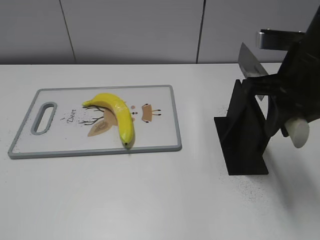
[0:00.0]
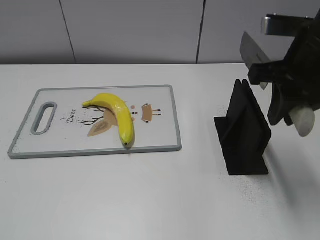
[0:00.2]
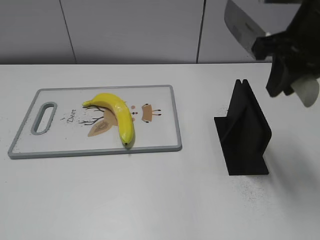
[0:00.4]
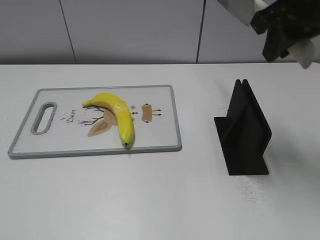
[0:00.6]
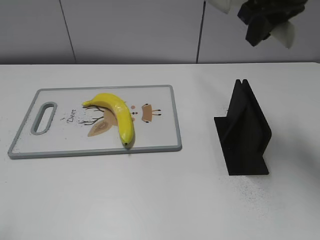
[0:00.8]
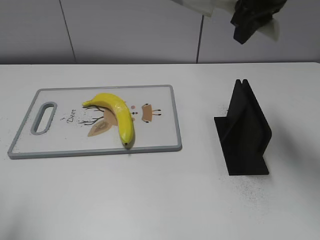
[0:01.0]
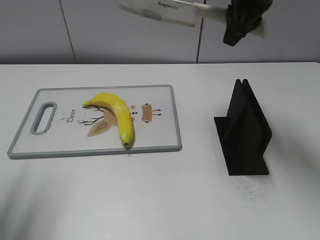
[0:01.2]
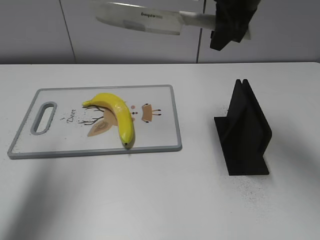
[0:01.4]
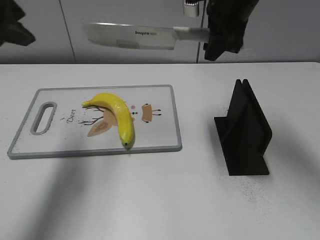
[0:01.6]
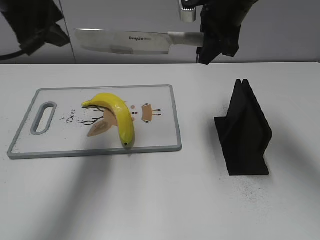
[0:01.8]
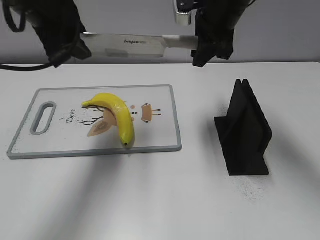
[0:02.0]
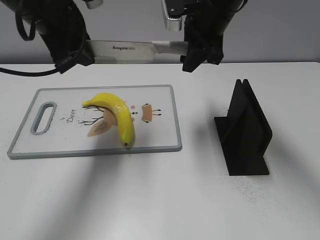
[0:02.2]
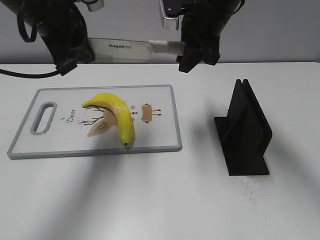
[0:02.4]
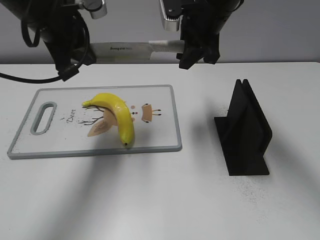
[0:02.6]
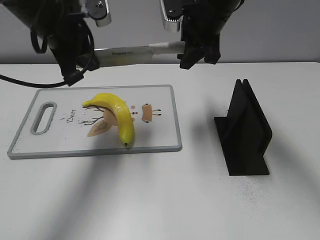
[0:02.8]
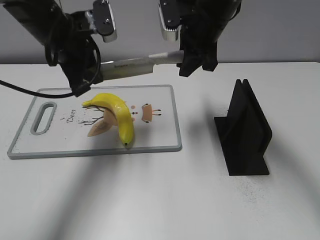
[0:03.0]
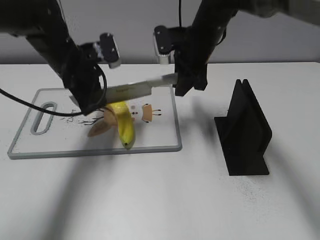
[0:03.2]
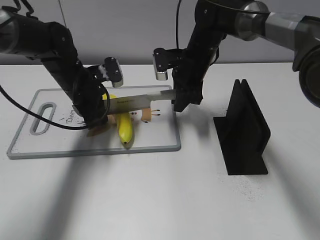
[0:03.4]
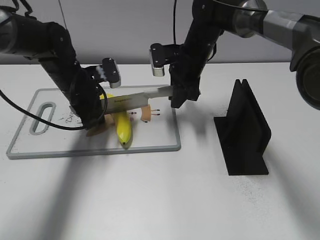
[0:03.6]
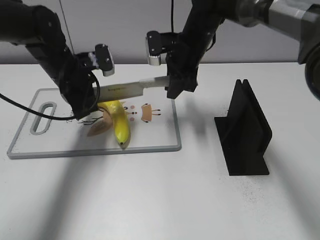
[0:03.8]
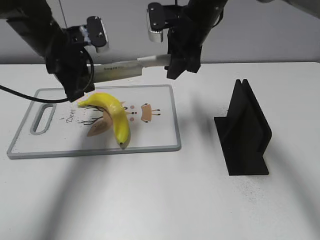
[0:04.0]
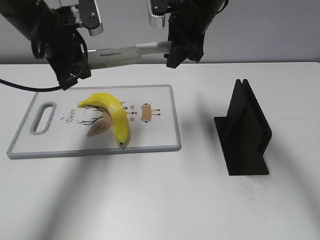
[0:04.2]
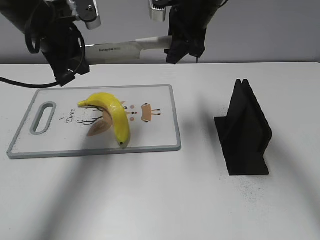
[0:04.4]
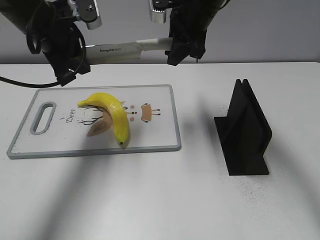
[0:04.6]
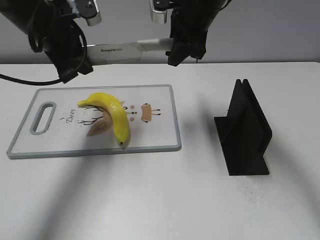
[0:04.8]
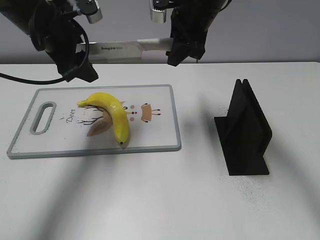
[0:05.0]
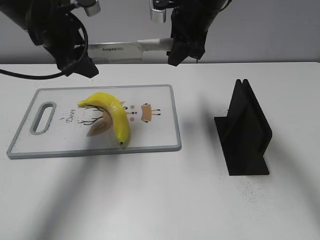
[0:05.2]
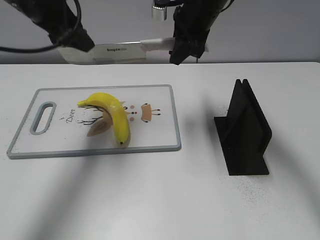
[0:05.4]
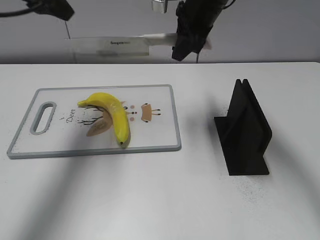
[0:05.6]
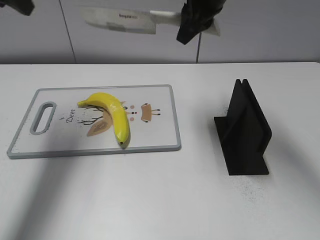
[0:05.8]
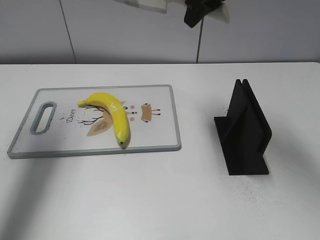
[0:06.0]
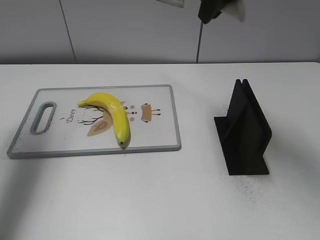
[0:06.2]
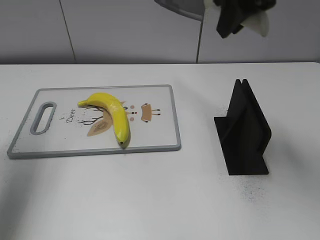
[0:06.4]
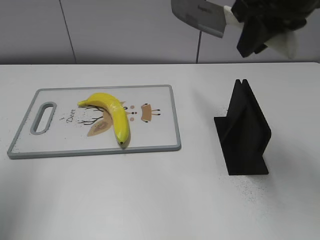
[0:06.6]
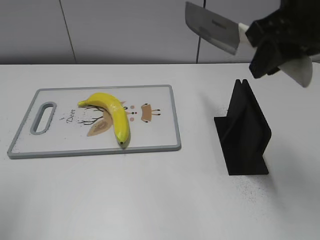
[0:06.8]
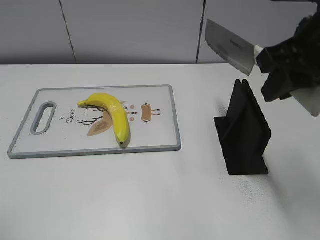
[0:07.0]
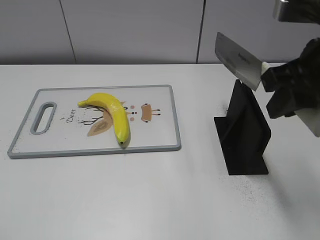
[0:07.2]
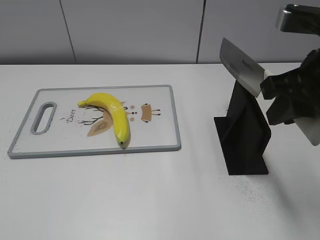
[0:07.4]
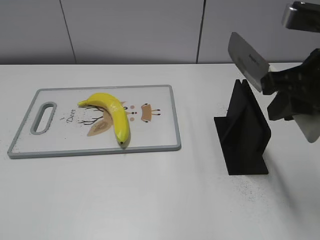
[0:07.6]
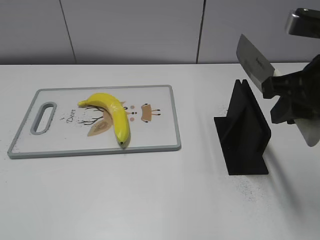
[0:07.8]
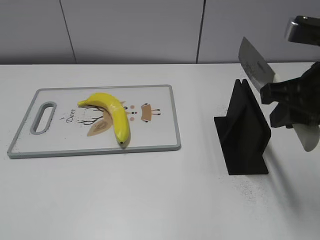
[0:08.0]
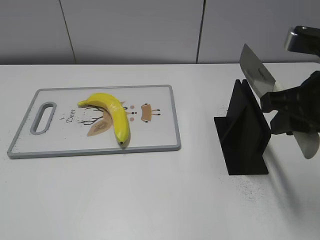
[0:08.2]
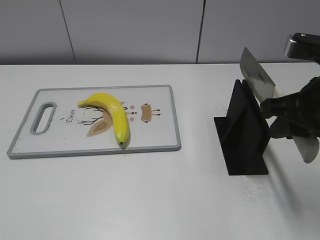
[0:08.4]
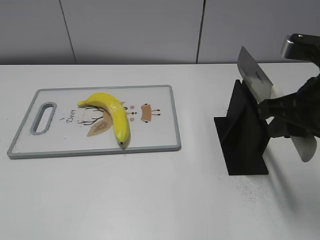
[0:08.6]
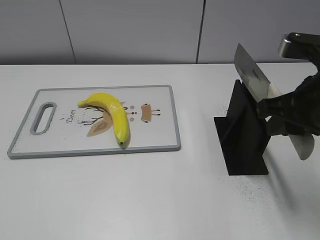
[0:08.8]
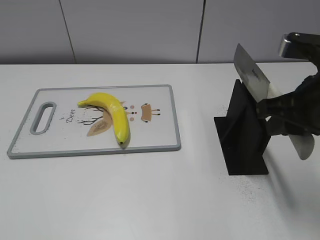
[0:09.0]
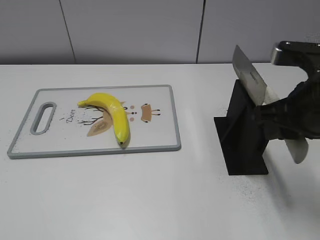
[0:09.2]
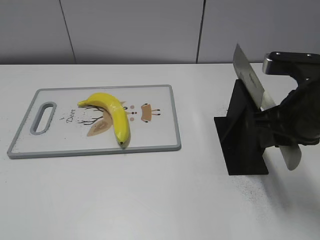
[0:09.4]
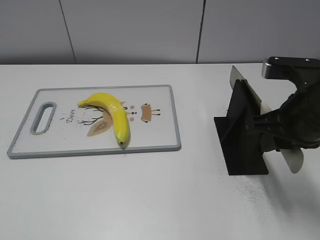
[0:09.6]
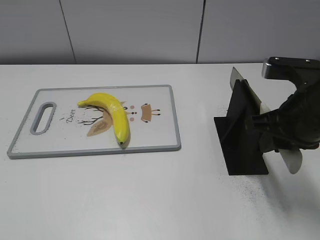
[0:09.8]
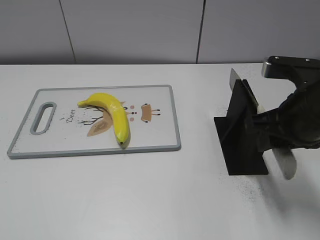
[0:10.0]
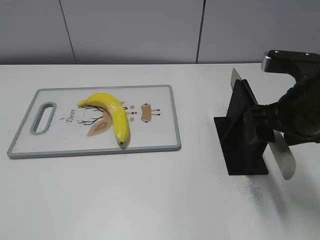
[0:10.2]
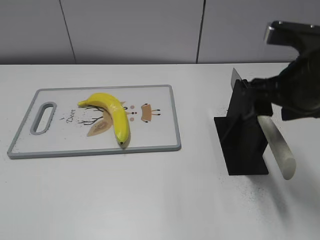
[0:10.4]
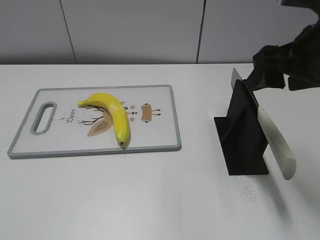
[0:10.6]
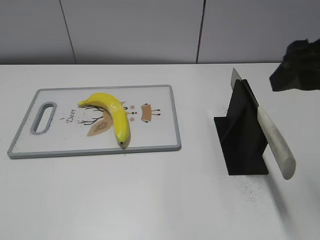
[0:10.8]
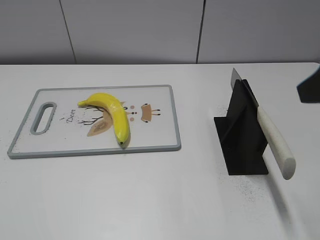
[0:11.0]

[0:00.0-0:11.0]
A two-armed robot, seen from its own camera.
Task of the whole recording: cut plastic banana.
Step, 0:00.8 to 0:04.6: Lift the knife with your right hand.
Step, 0:04.8 to 0:05.8: Cut the banana with your right hand.
Step, 0:06.0 to 0:07.2: Lift the knife with your right hand.
0:00.0 to 0:01.6: The left gripper heads forward, covering some 30 cm. The right gripper heads forward and to the left, covering approximately 15 cm.
0:01.6 to 0:03.2: The left gripper moves downward and forward, some 20 cm, and closes its fingers, while the right gripper moves downward, roughly 10 cm.
0:03.2 to 0:04.8: Both grippers travel together upward, roughly 10 cm. The left gripper opens up.
0:04.8 to 0:06.2: The right gripper moves upward, roughly 10 cm, while the left gripper is displaced to the left and upward by approximately 15 cm, and opens up.
0:06.2 to 0:07.8: The left gripper heads backward, covering about 35 cm. Meanwhile the right gripper goes about 20 cm backward, to the right and downward.
0:07.8 to 0:09.4: The right gripper goes approximately 5 cm downward.
0:09.4 to 0:11.0: The right gripper goes approximately 15 cm upward and backward, and opens up.

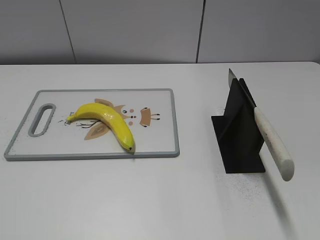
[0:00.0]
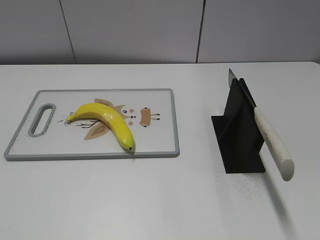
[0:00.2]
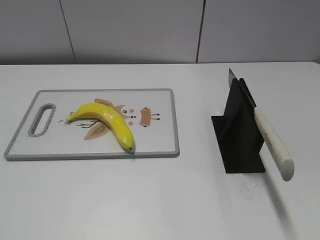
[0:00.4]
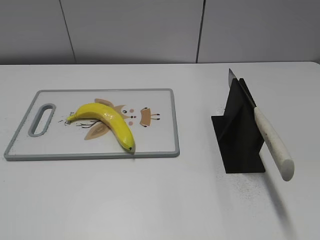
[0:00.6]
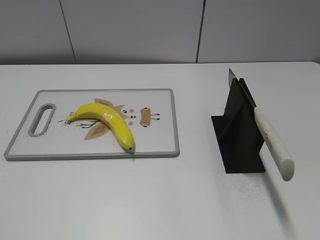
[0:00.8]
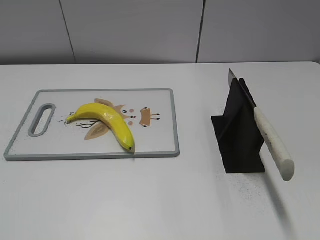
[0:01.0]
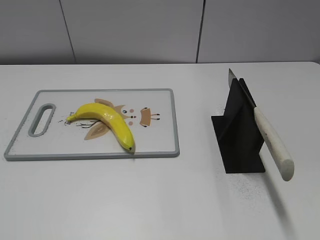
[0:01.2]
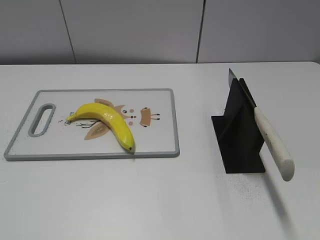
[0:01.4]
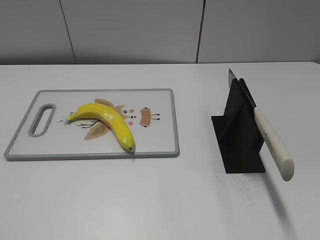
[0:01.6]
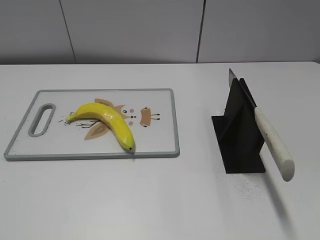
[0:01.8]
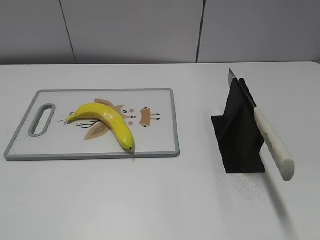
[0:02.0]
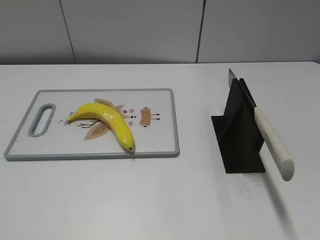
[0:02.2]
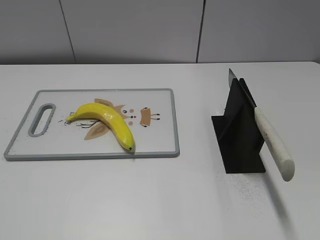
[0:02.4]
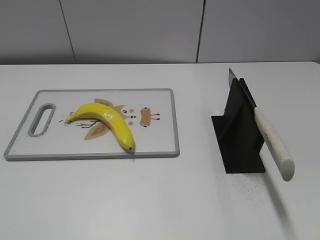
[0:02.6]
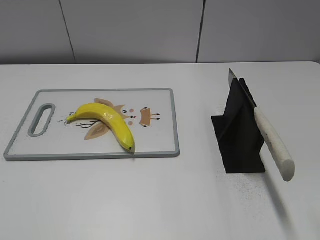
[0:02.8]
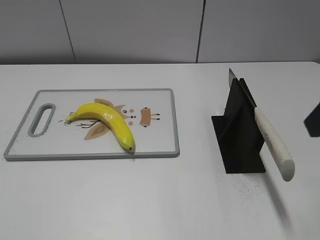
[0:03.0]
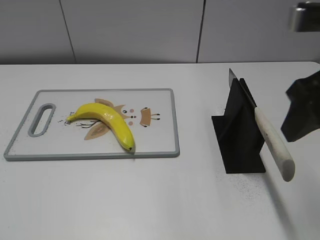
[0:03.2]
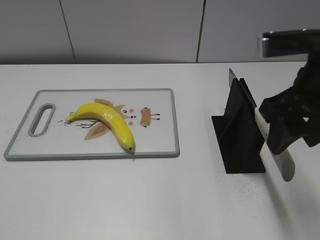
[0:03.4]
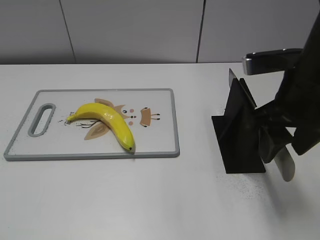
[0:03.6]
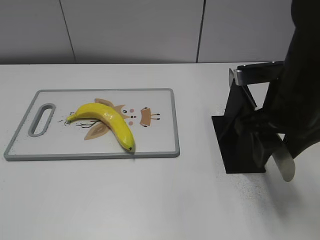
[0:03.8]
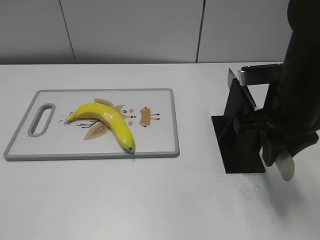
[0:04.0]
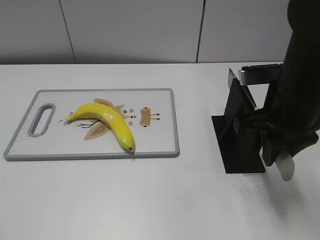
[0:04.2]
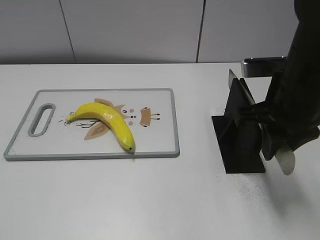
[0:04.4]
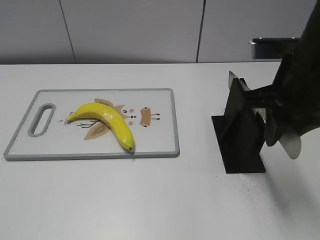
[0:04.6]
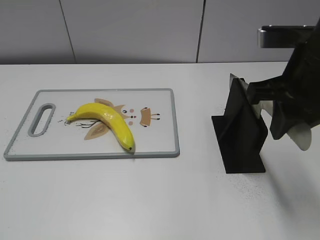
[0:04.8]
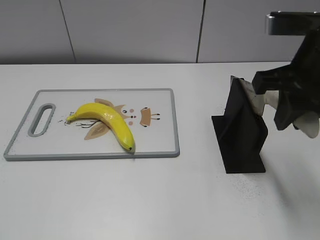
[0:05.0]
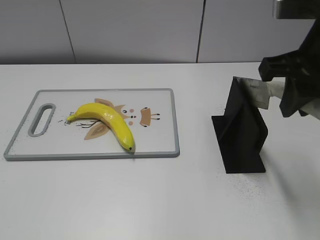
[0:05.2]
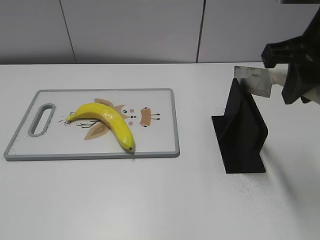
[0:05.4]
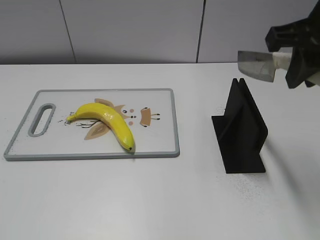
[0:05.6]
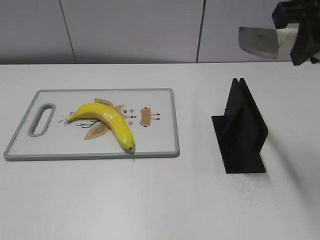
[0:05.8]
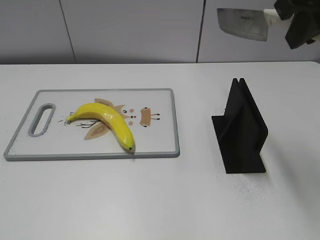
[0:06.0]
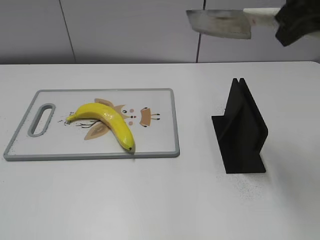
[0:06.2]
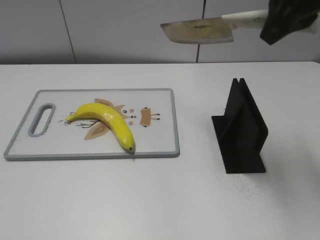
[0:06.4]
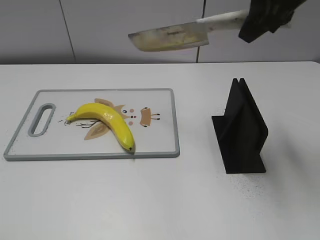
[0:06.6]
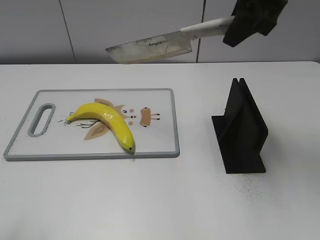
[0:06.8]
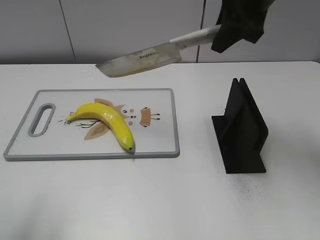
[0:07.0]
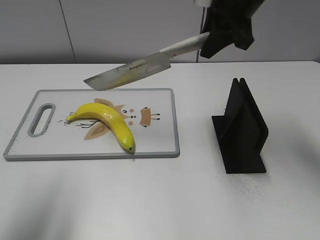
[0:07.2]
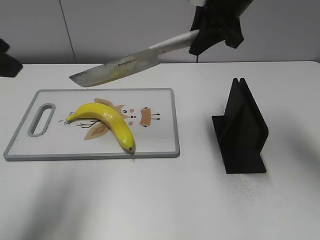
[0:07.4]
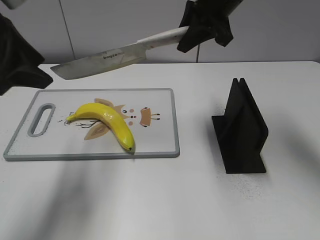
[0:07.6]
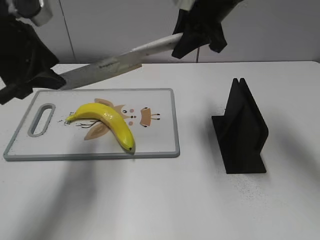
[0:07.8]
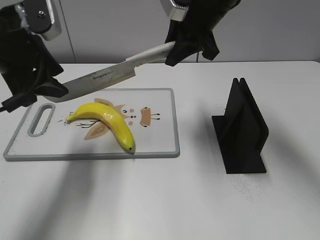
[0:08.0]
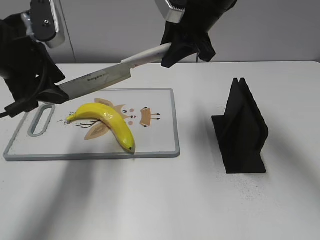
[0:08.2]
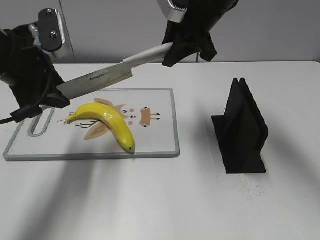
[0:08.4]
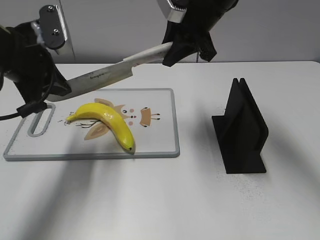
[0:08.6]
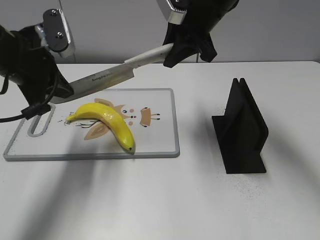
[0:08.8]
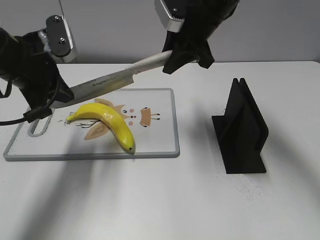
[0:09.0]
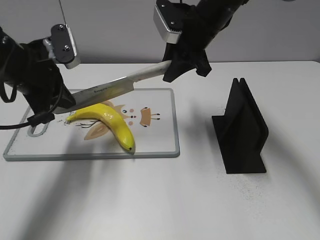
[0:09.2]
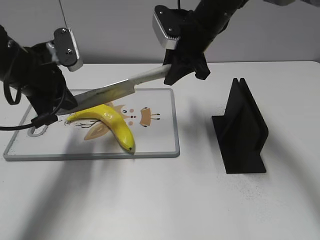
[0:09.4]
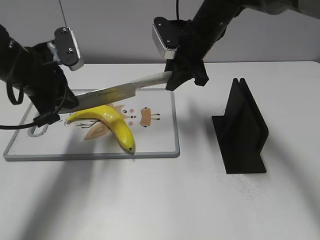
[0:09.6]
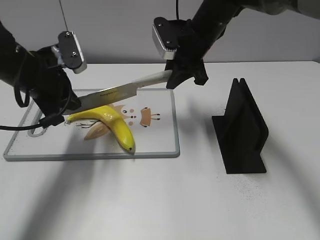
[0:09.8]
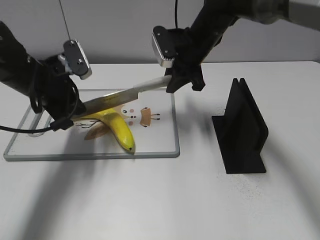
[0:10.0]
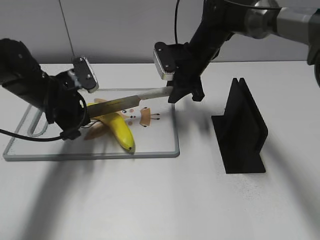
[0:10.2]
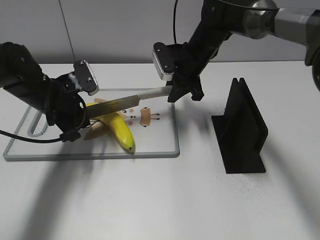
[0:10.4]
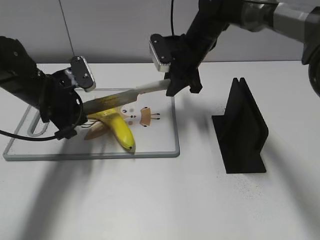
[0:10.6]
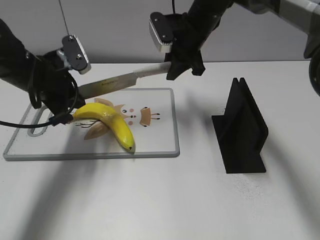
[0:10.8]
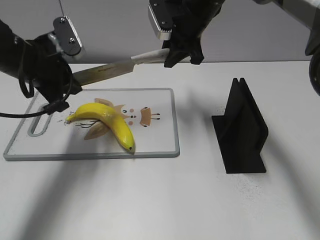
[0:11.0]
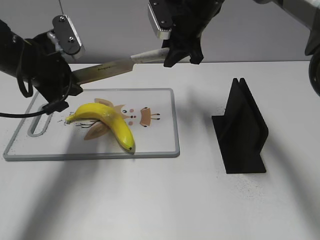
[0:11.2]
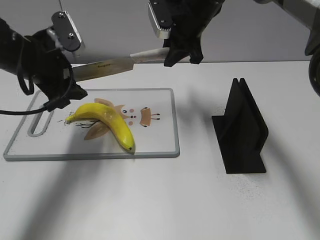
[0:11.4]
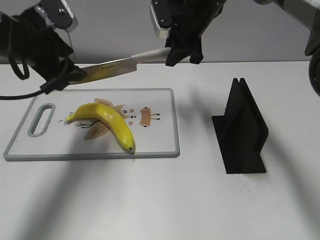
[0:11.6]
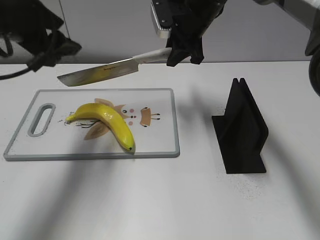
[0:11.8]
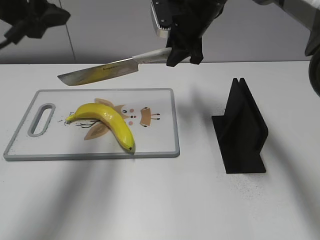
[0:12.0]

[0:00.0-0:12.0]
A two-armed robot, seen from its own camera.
Task of the whole recording: cut plastic banana.
Step, 0:00.0 to 0:05.0: Grab the knife handle with your right hand.
Step, 0:05.4 to 0:11.0: Lift the knife with your right hand.
0:03.0 to 0:04.4: The right gripper travels downward, forward and to the left by approximately 15 cm, and closes.
0:04.4 to 0:06.0: The right gripper shifts about 15 cm upward.
0:06.0 to 0:07.6: The right gripper is displaced forward, downward and to the left by approximately 20 cm. The left gripper shifts some 25 cm forward.
0:07.6 to 0:09.0: The right gripper moves roughly 5 cm. The left gripper is displaced downward and forward by some 10 cm, and closes up.
0:09.0 to 0:10.4: Both grippers move downward, approximately 10 cm.
0:10.4 to 0:12.0: The left gripper travels upward by approximately 20 cm, and opens. Meanwhile the right gripper moves upward, about 10 cm.
